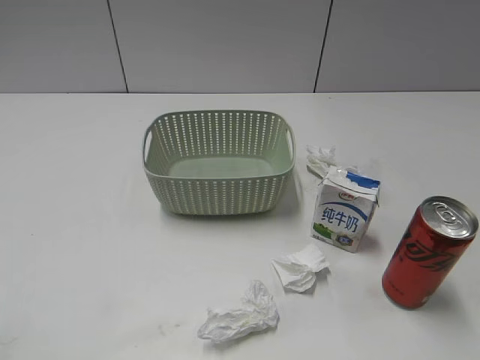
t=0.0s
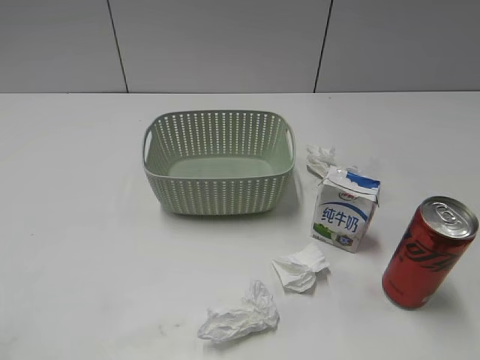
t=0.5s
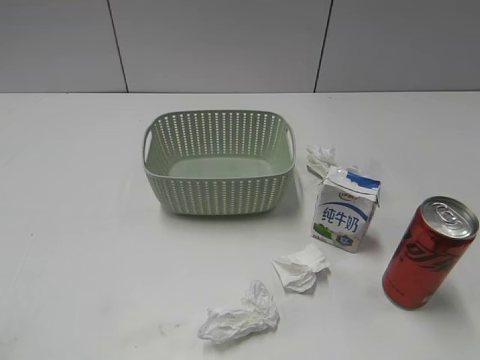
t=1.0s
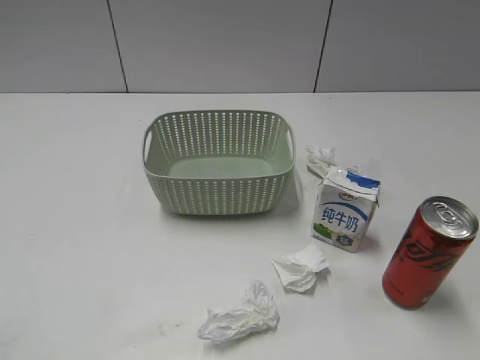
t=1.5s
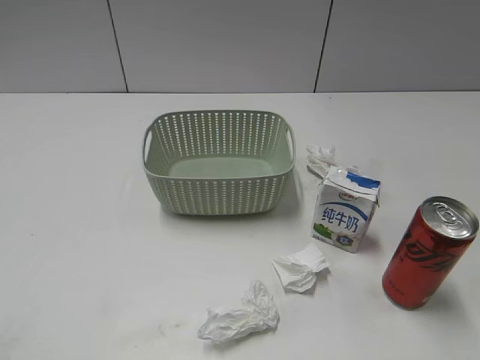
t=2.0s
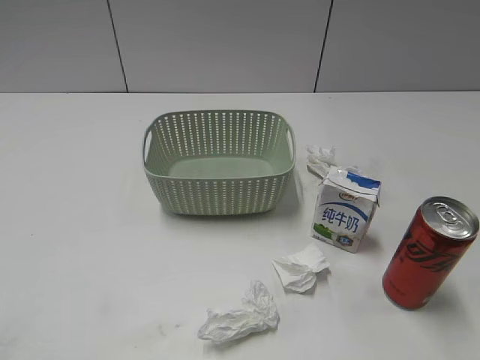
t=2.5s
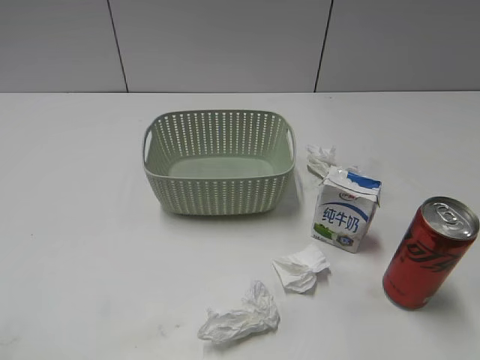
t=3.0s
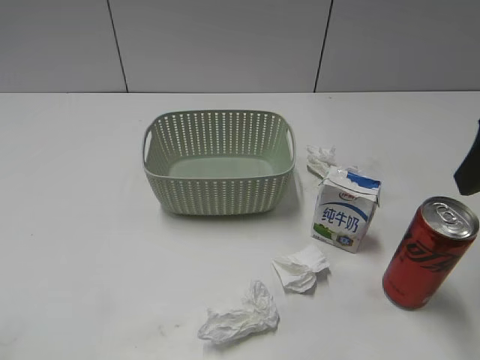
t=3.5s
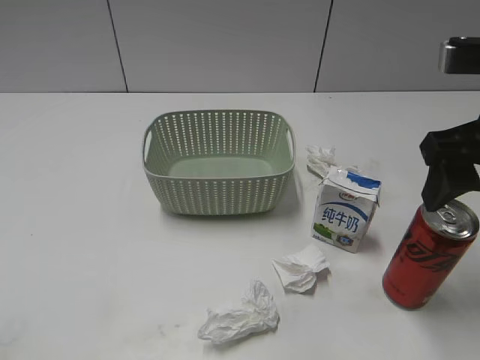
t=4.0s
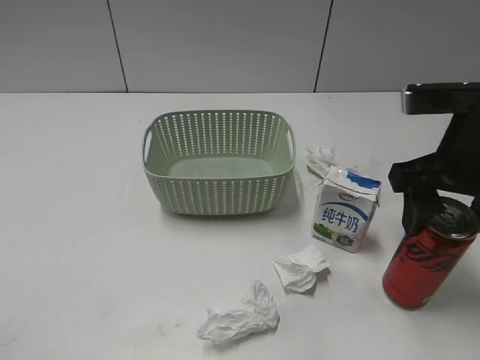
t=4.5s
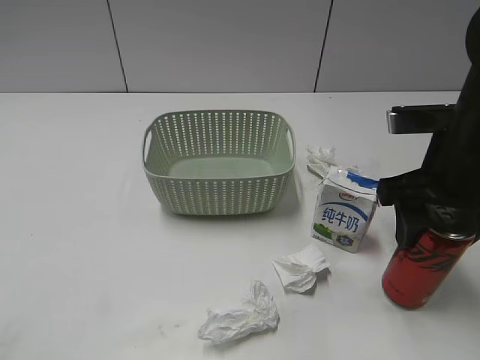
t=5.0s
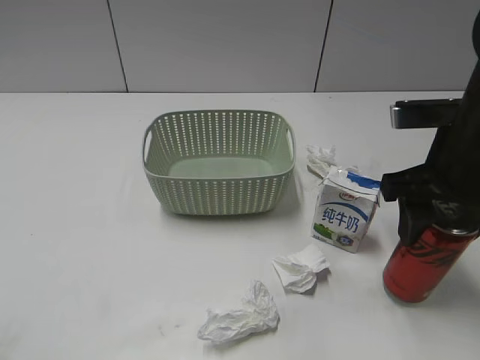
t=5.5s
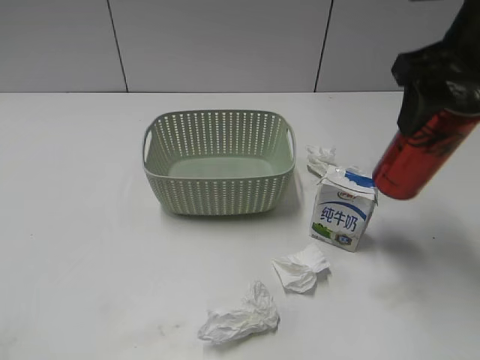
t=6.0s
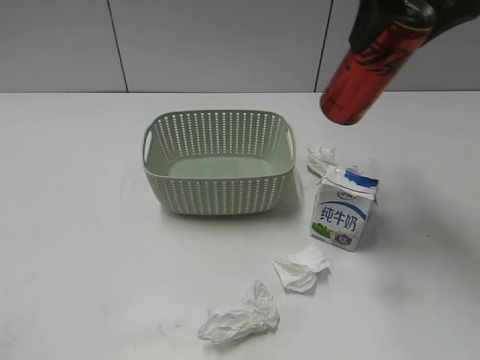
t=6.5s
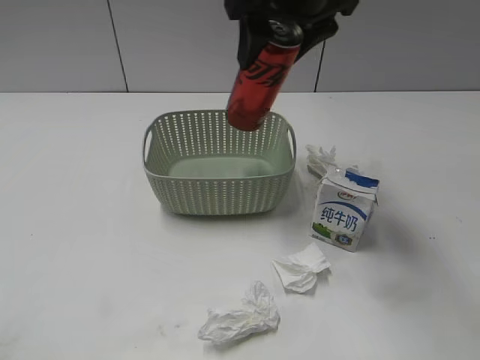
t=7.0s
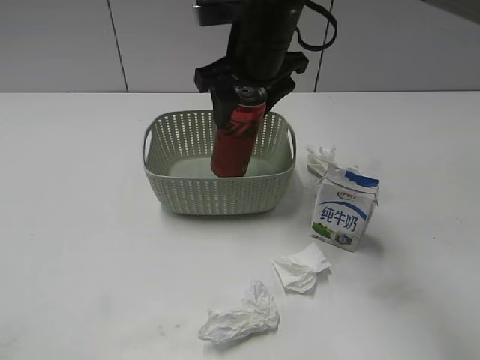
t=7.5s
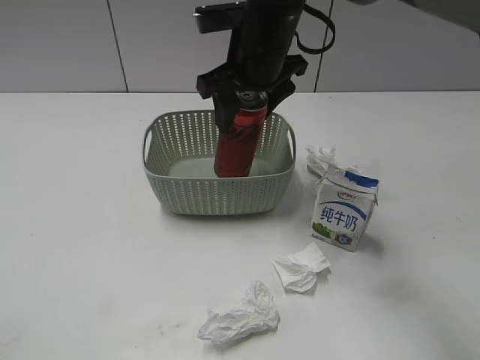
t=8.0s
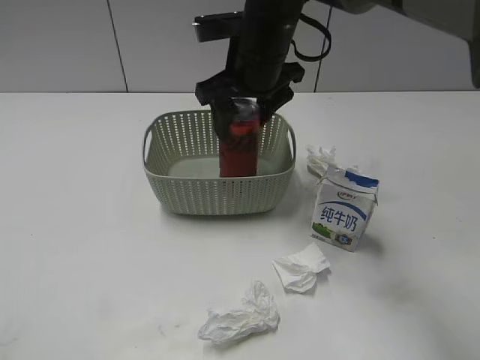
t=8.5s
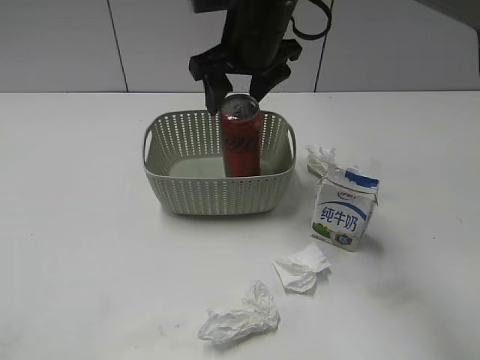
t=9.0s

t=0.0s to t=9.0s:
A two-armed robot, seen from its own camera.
Step, t=3.5s to t=5.0s: Grasp the cola can with right gripper.
t=2.0s to t=4.5s: The right gripper heads forward, to the left and downward, covering some 20 cm.
t=4.5s to t=7.0s: The right gripper moves to the left, forward and upward, about 20 cm, and closes.
t=7.0s to t=9.0s: The right gripper is displaced downward by roughly 5 cm, and opens.

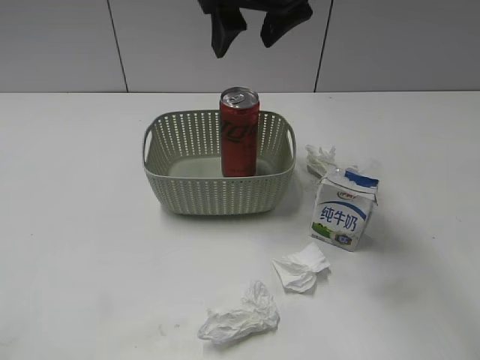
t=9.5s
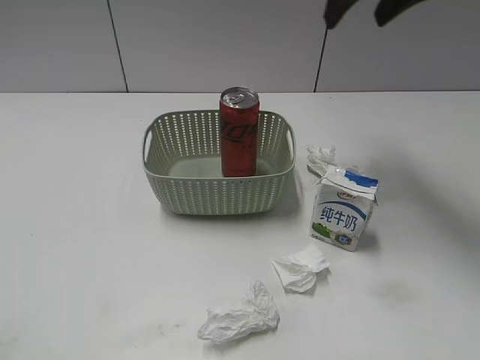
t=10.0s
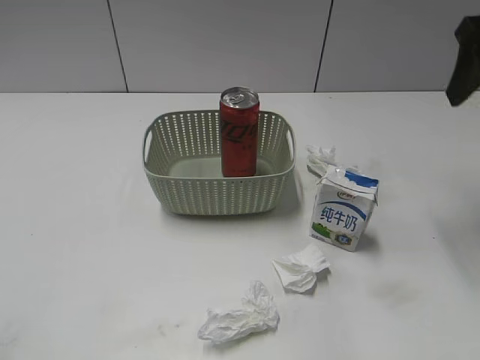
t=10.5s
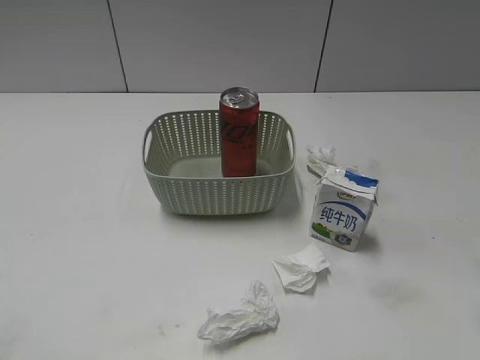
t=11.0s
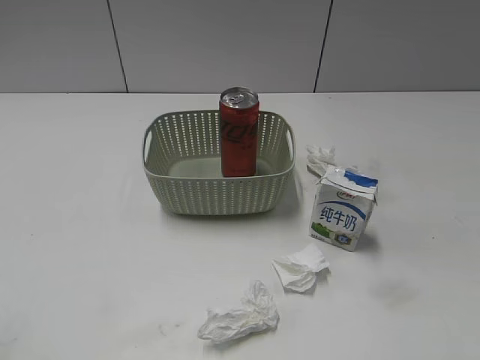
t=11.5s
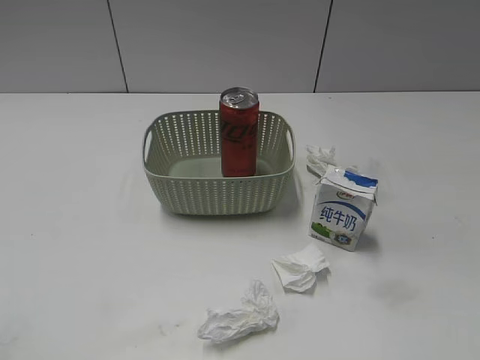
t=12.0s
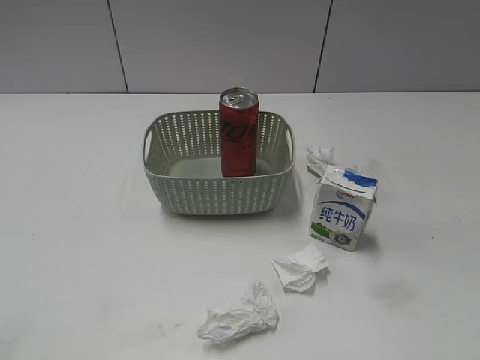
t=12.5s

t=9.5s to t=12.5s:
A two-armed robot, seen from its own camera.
t=9.5s to t=11.0s: The right gripper is displaced to the right and backward by about 30 cm.

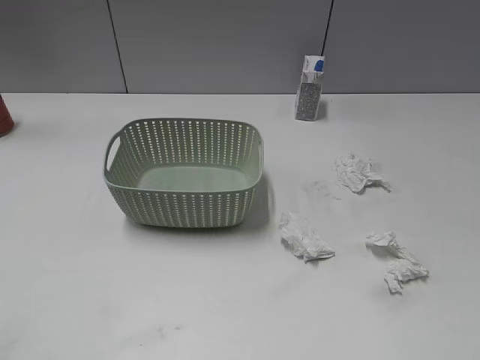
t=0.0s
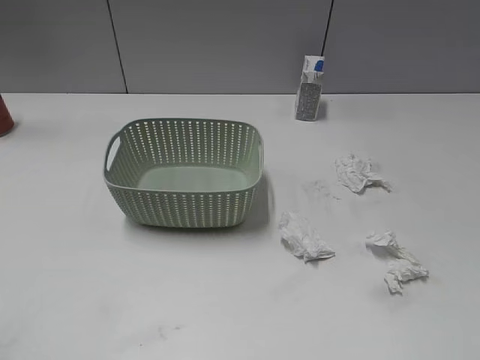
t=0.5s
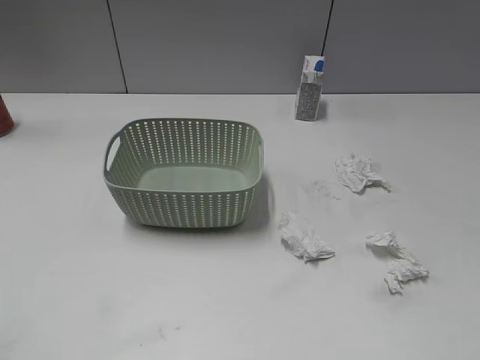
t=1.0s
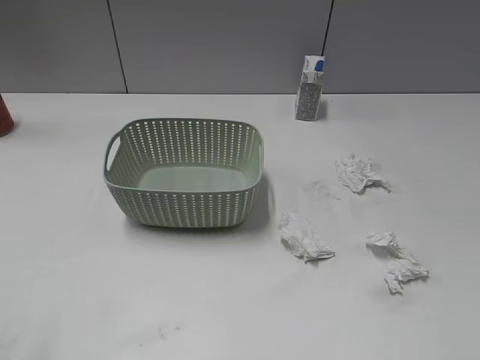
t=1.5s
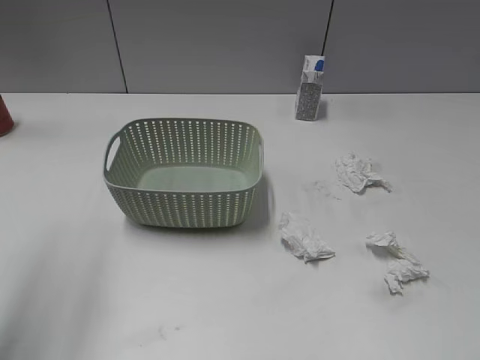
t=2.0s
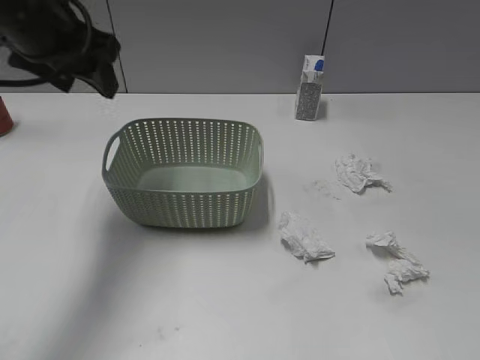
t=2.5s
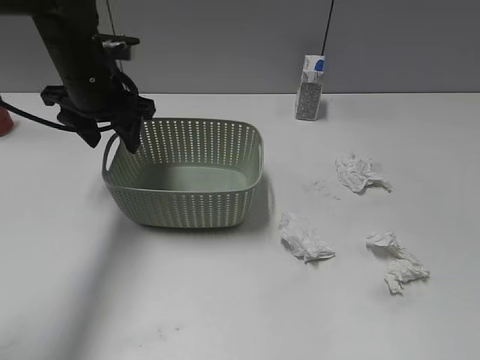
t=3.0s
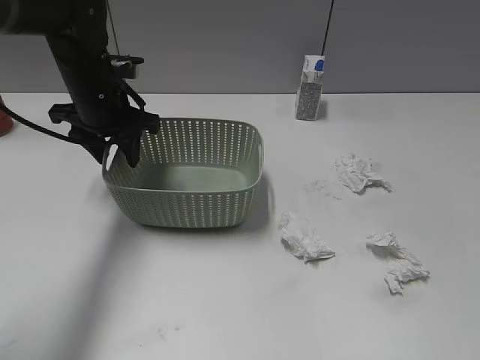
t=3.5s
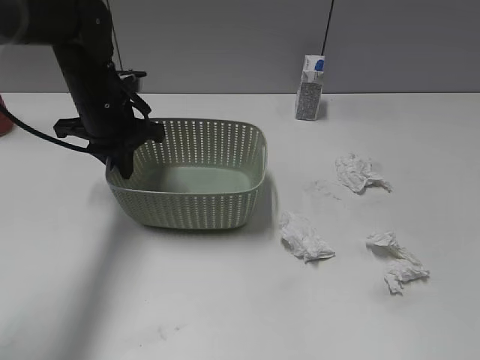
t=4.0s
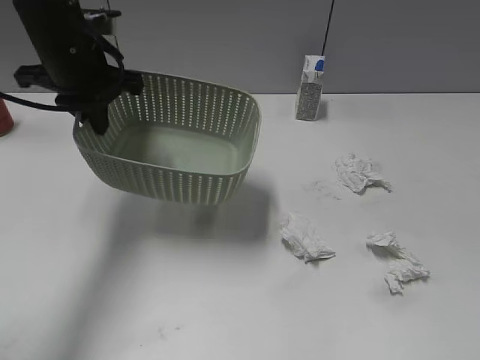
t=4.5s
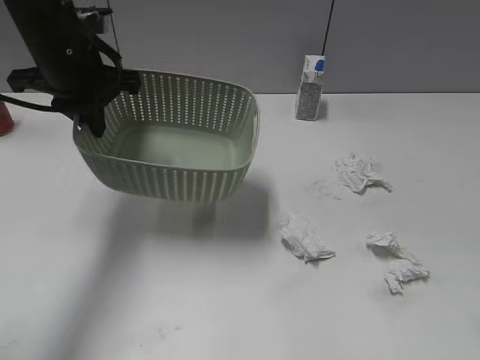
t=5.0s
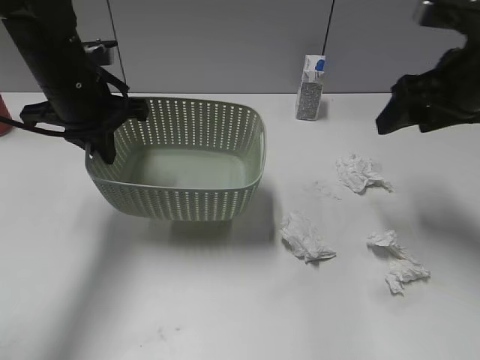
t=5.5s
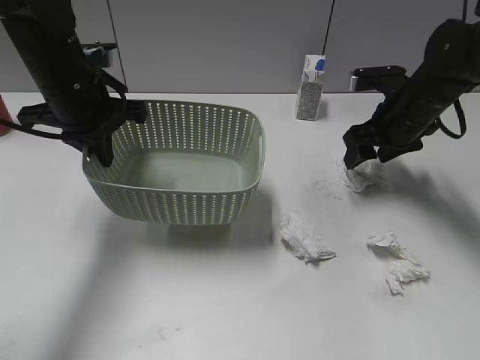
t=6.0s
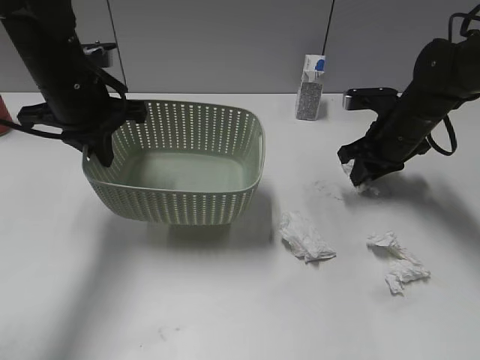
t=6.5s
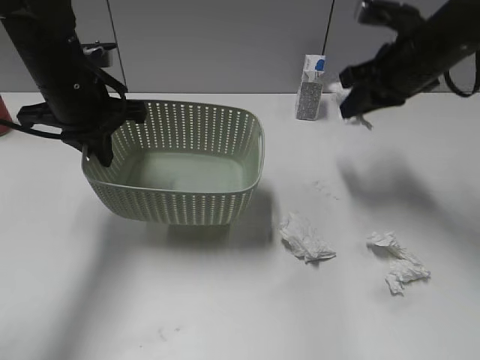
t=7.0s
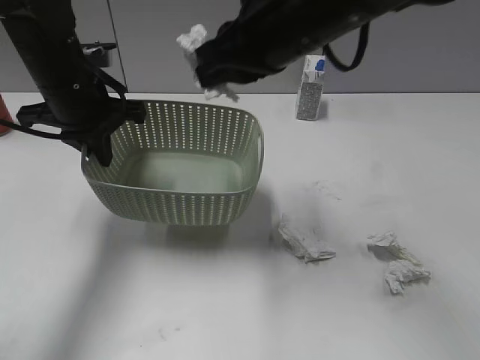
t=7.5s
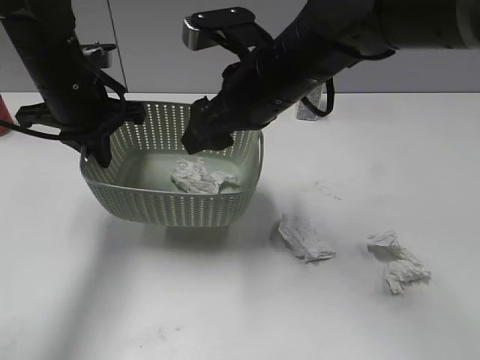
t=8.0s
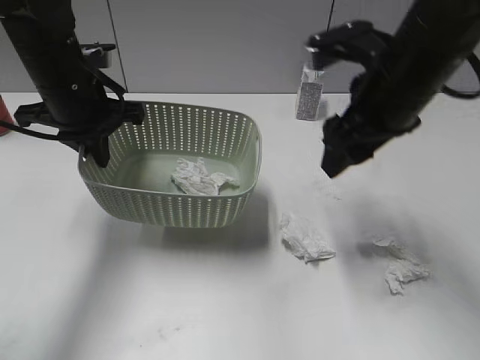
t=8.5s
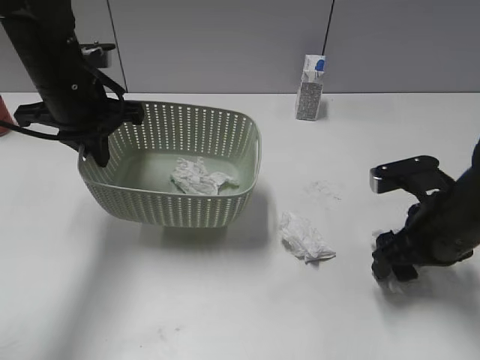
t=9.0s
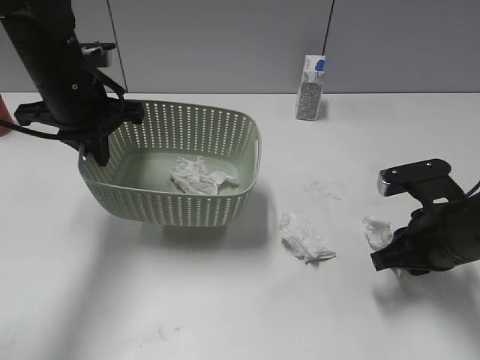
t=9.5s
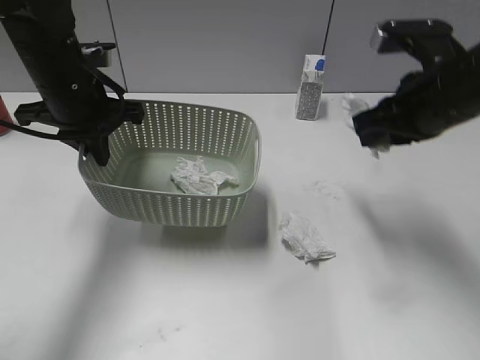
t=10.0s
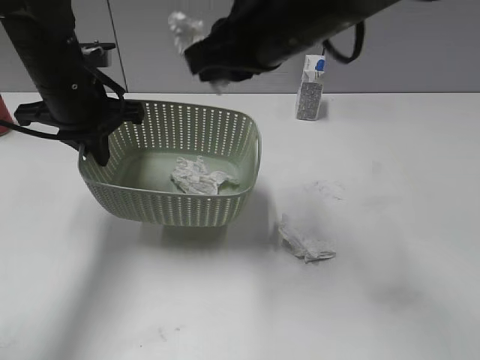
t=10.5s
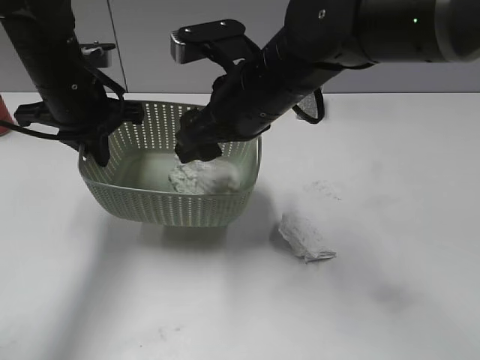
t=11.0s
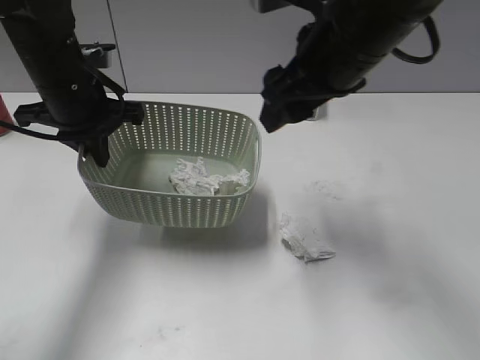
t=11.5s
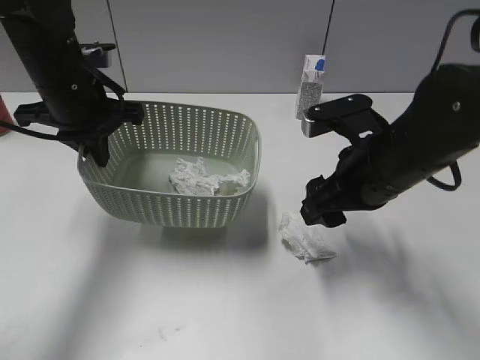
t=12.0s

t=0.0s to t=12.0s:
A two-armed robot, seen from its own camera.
Step, t=2.0s to t=4.0s: Grasp the basket with left gripper.
Step, t=4.5s to t=6.5s: Grasp the waste paper with right gripper.
Step, t=7.0s to t=8.0s: Place the waste paper in the basket with right gripper.
Step, t=8.5s to t=9.5s: Grasp the waste paper with right gripper.
Step, t=10.0s to t=11.0s: Place the waste paper in the basket with right gripper.
t=2.0s to t=4.0s: The left gripper moves downward, forward and to the right, some 30 cm, and closes up.
t=4.0s to t=6.0s: The right gripper goes some 40 cm forward; the left gripper shifts by about 5 cm.
t=6.0s to t=8.0s: The right gripper shifts roughly 25 cm to the left, upward and backward, and closes and opens again.
t=8.0s to t=10.0s: The right gripper heads to the right, covering some 15 cm, and closes.
t=10.0s to t=12.0s: The right gripper travels downward by approximately 10 cm, goes to the left and returns, some 15 cm each way, and opens its fingers.

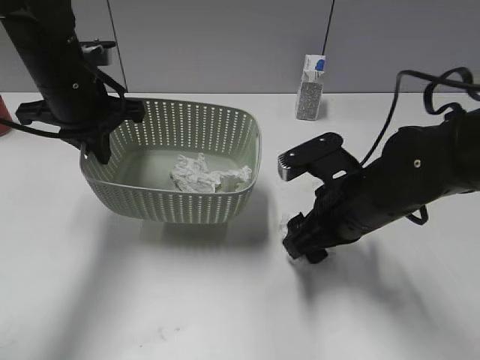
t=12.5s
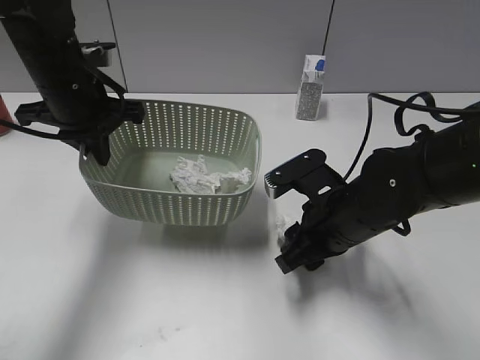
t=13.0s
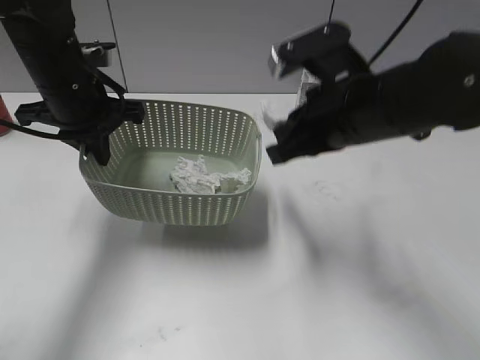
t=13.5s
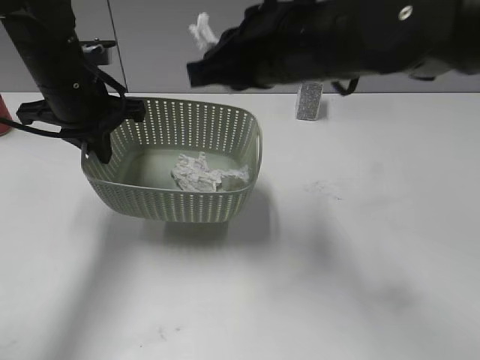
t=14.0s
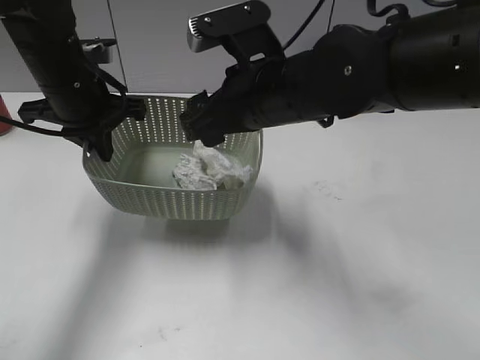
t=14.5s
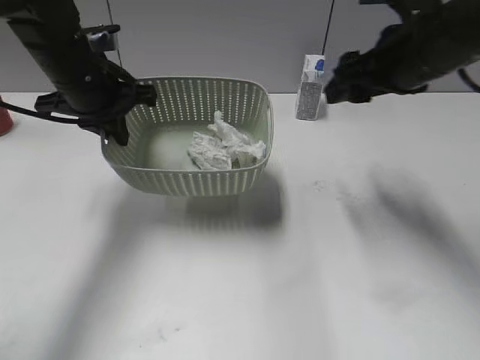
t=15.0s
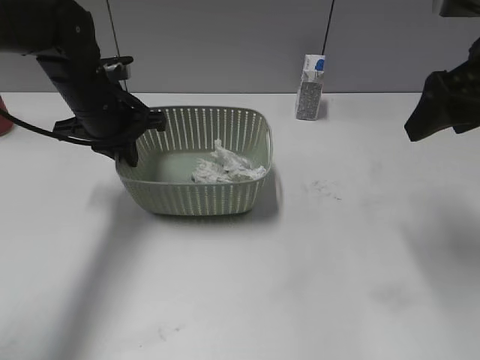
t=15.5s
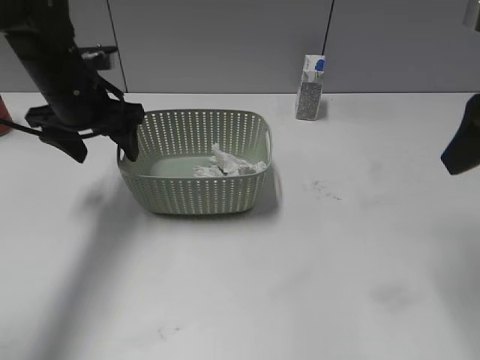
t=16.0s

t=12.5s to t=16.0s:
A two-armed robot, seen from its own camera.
Step, t=14.0s to t=14.5s: Place the waste paper in the basket with right gripper.
Step, t=15.0s to t=15.5s: Place the basket on the table with left gripper.
t=12.5s to t=14.5s: The right gripper heads upward and to the left, covering about 15 cm, and closes and opens again.
t=14.5s to t=16.0s: The left gripper opens up, while the right gripper travels to the right by approximately 20 cm.
